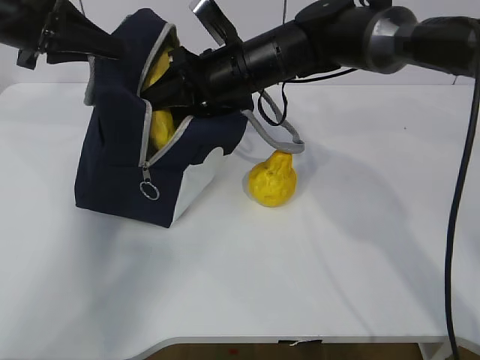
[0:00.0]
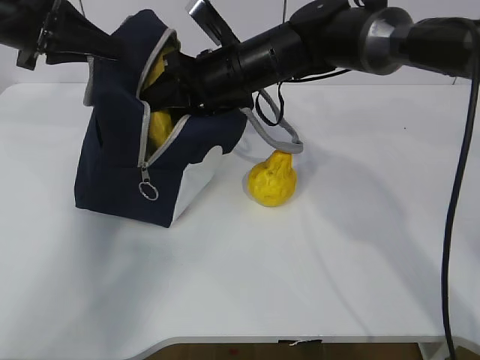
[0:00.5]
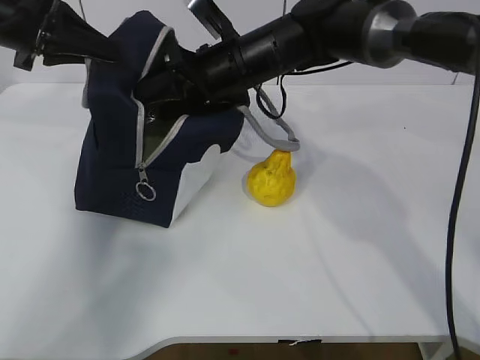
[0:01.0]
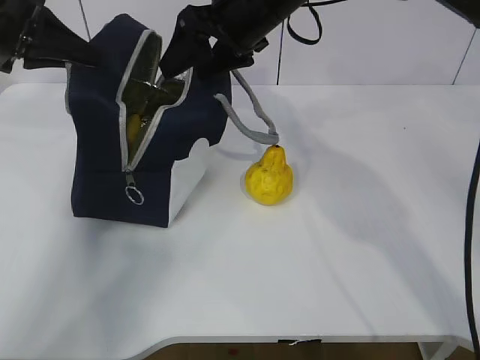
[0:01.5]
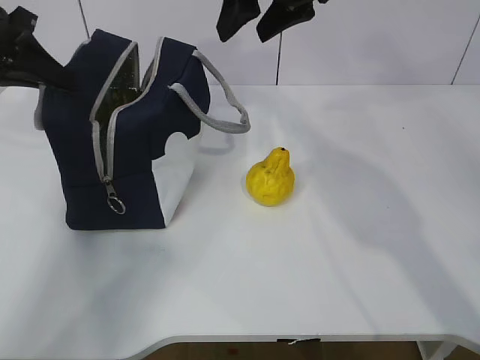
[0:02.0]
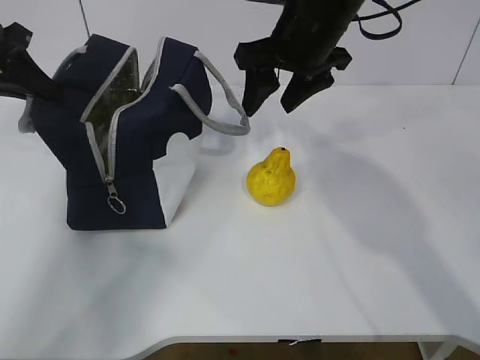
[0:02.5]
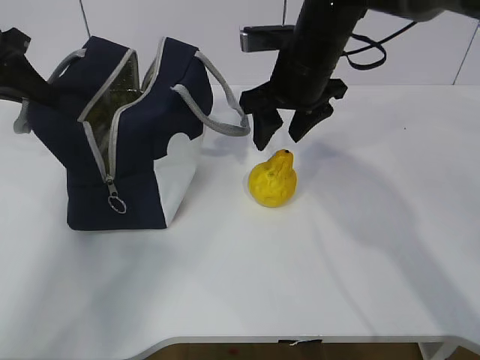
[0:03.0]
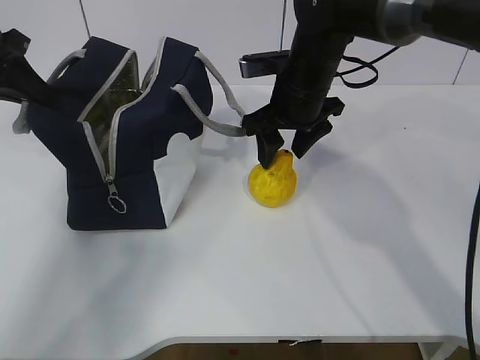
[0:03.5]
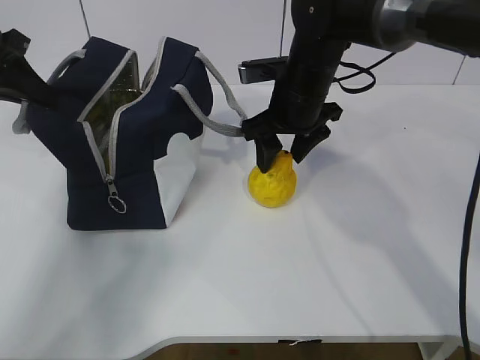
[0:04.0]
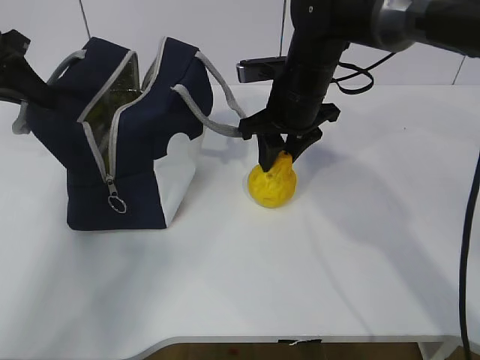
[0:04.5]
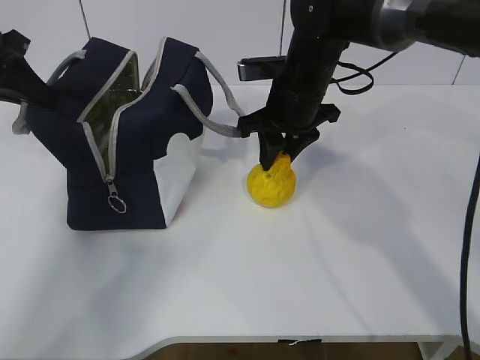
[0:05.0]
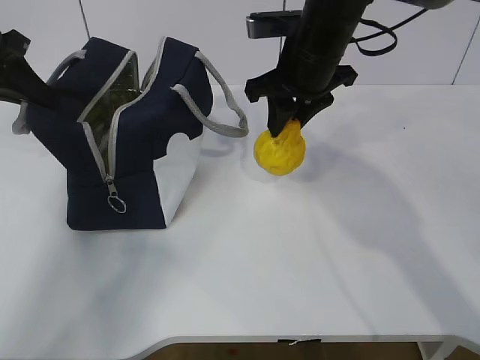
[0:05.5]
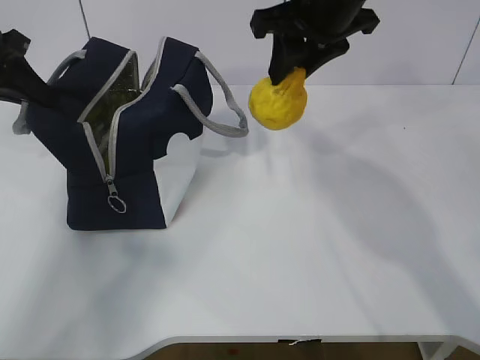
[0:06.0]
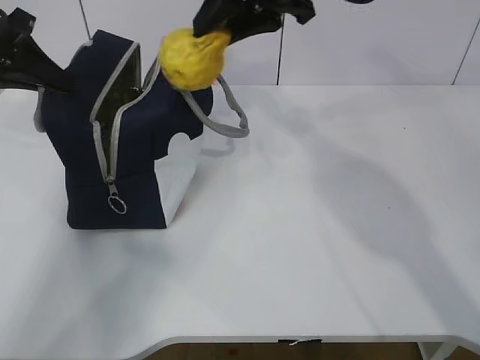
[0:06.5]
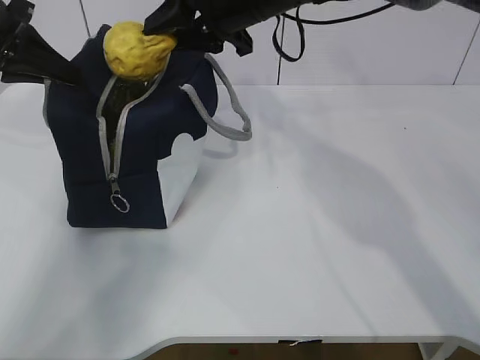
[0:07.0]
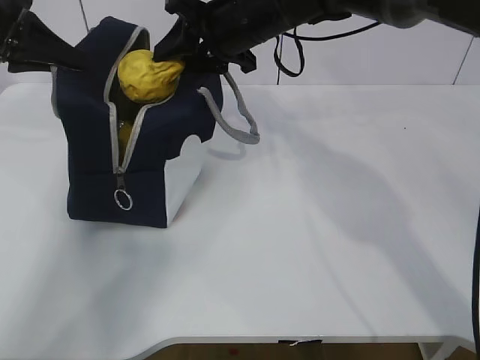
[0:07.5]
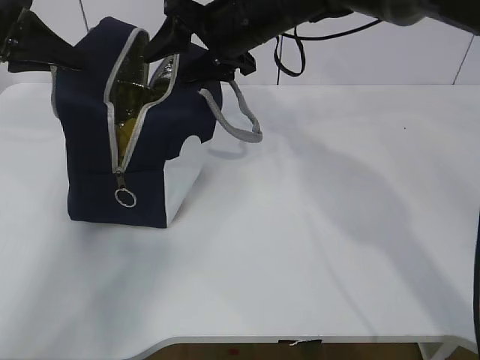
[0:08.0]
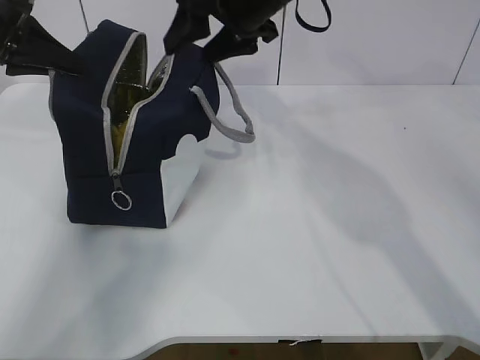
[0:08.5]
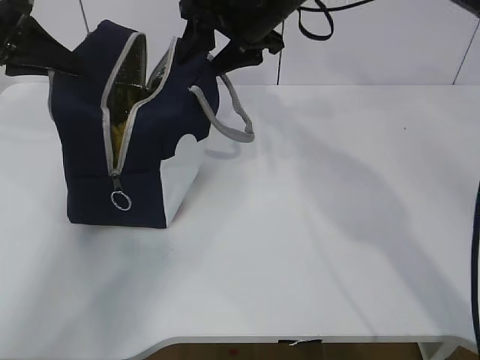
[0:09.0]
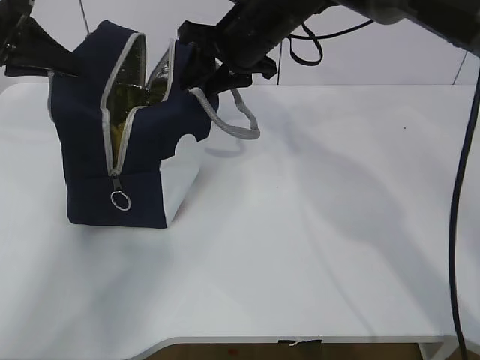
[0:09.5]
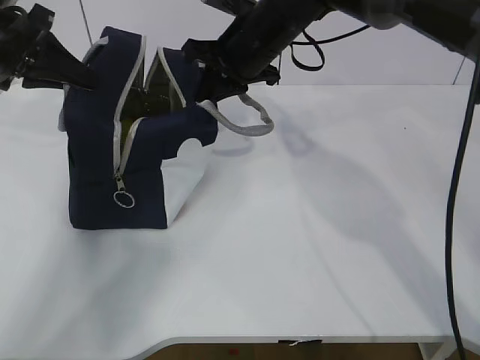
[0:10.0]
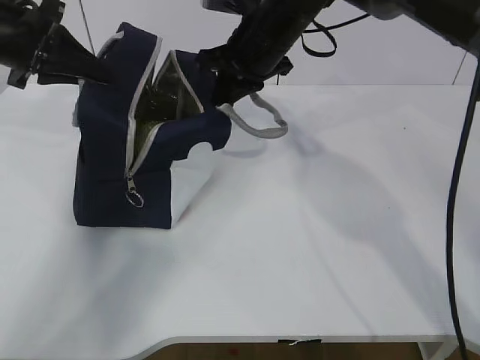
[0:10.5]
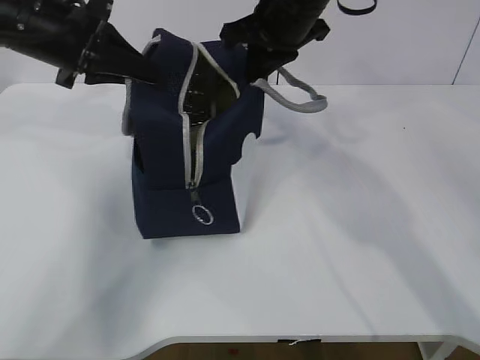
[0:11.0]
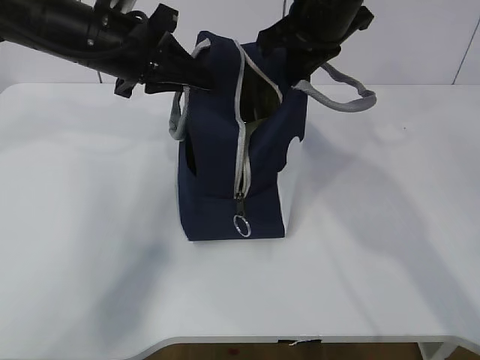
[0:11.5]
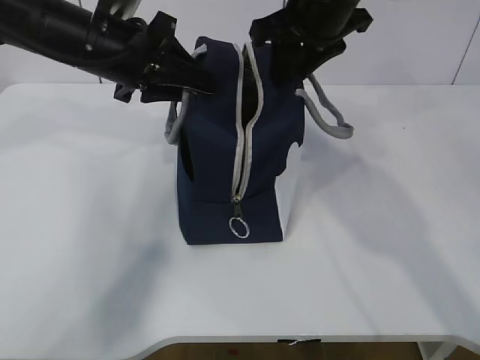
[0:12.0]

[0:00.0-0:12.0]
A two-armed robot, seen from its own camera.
Step, 0:01.5 to 0:04.5: Grasp the pear with the right gripper.
Step, 0:05.0 to 0:07.5: Place the pear into the package with the right gripper.
0:00.0 to 0:02.0: The right gripper is displaced upward and to the right by some 15 cm, and opens up.
0:02.0 to 0:04.0: The right gripper is displaced downward by approximately 15 cm.
0:04.0 to 0:06.0: The right gripper heads upward, covering approximately 10 cm, and closes.
0:06.0 to 0:08.0: The right gripper moves to the left, approximately 5 cm, and opens up.
0:08.0 to 0:10.0: The right gripper closes its fingers.
0:10.0 to 0:12.0: The left gripper travels to the right by some 15 cm, and opens, while the right gripper moves upward and to the right, approximately 10 cm, and opens its fingers.

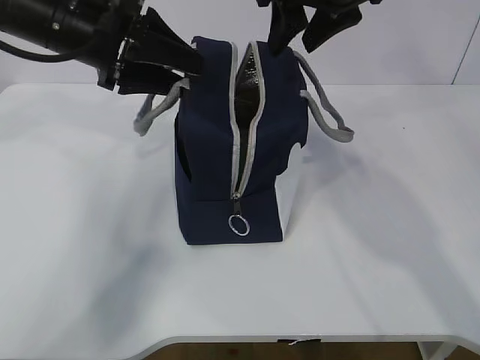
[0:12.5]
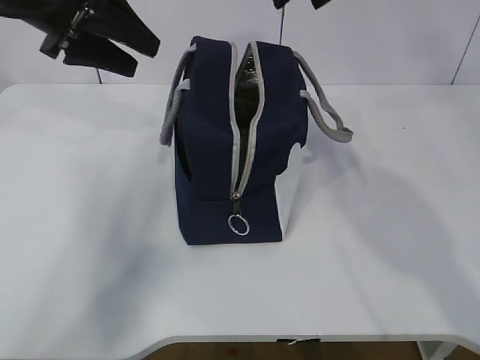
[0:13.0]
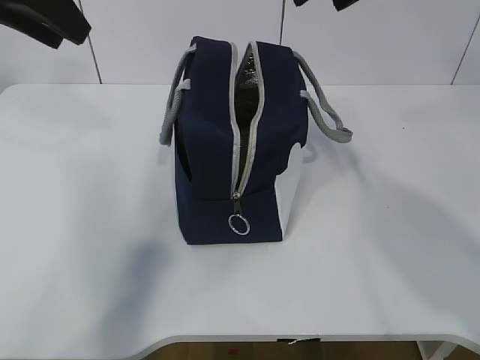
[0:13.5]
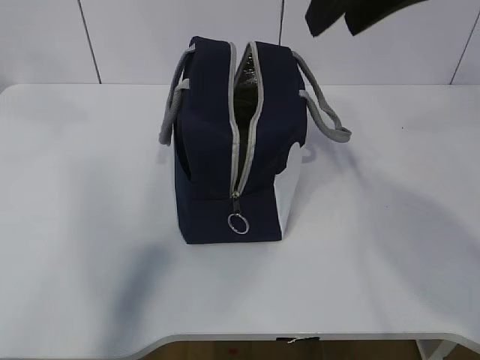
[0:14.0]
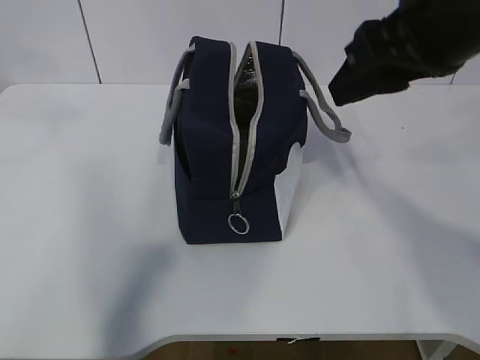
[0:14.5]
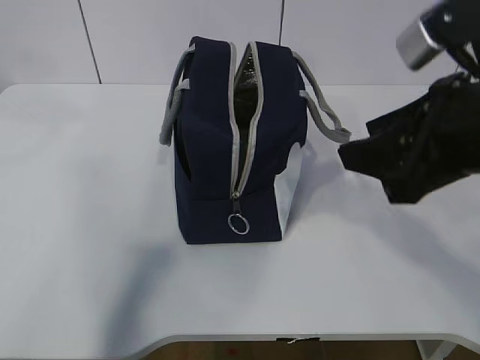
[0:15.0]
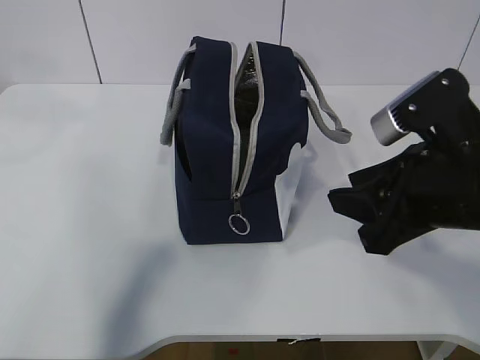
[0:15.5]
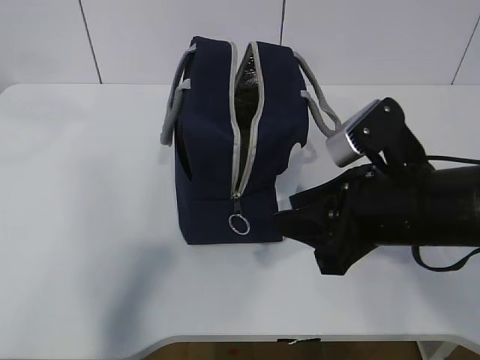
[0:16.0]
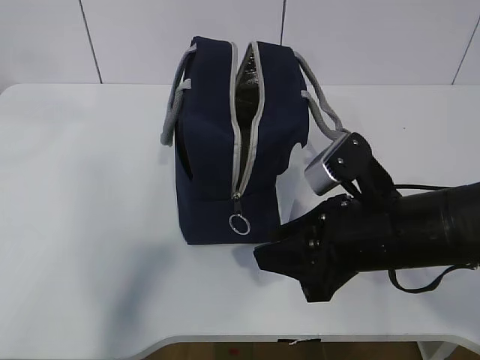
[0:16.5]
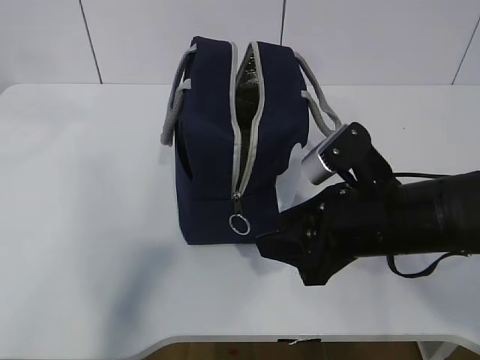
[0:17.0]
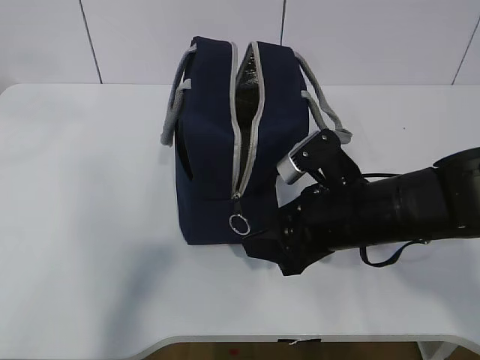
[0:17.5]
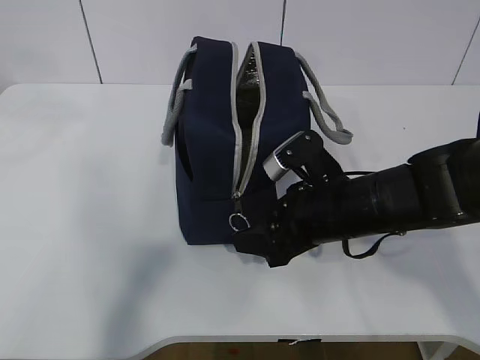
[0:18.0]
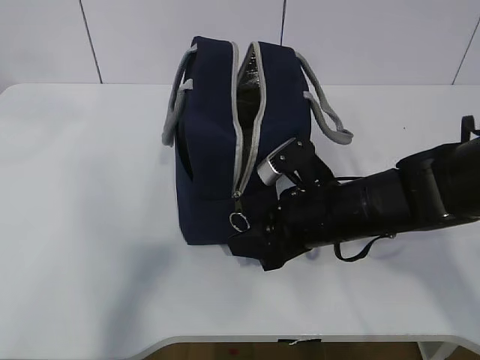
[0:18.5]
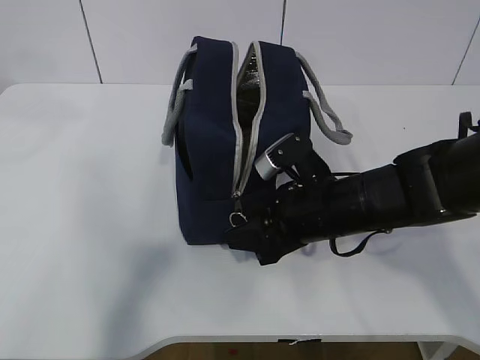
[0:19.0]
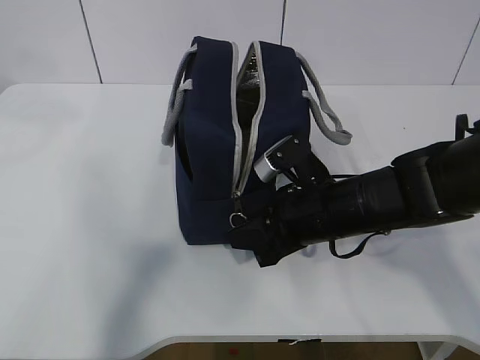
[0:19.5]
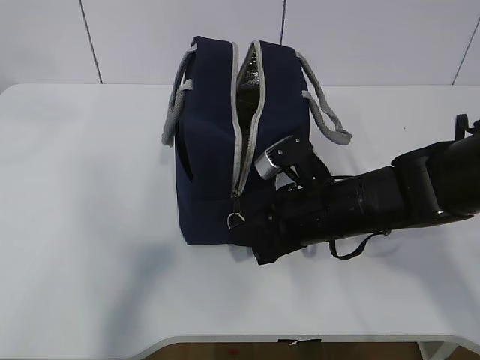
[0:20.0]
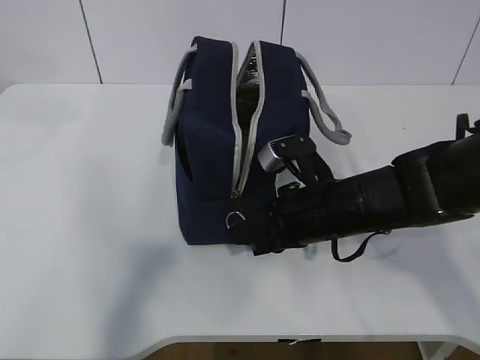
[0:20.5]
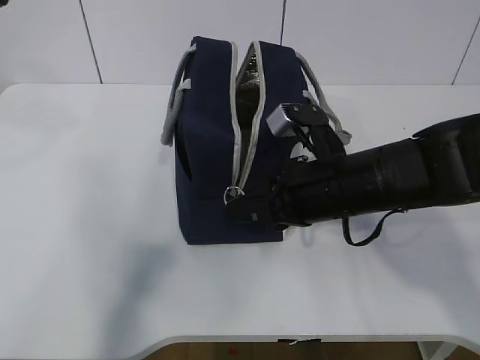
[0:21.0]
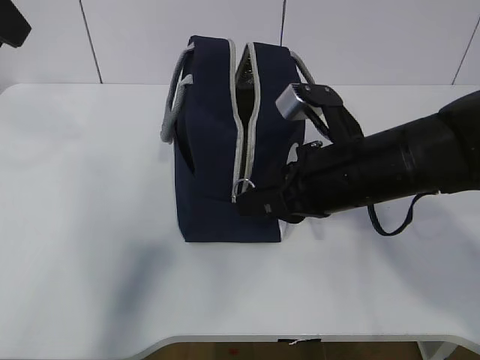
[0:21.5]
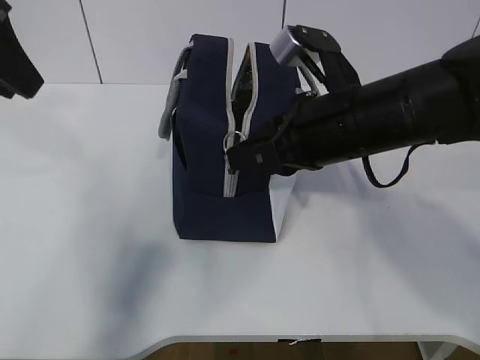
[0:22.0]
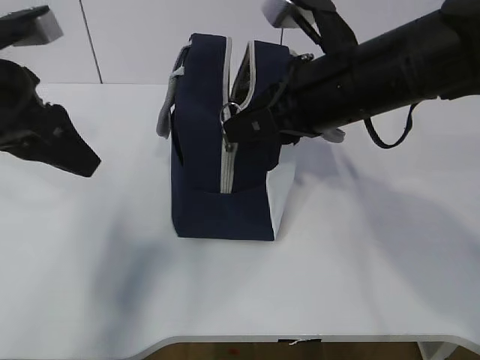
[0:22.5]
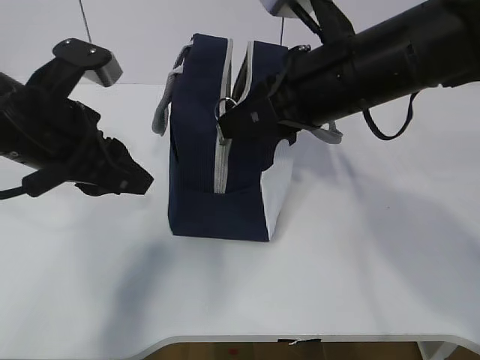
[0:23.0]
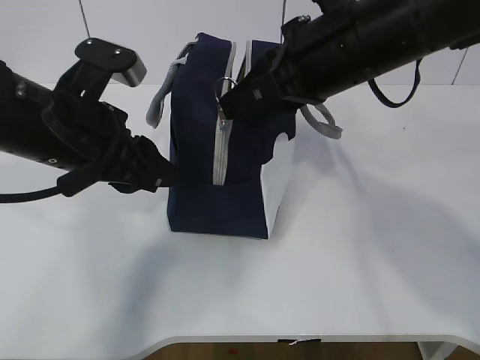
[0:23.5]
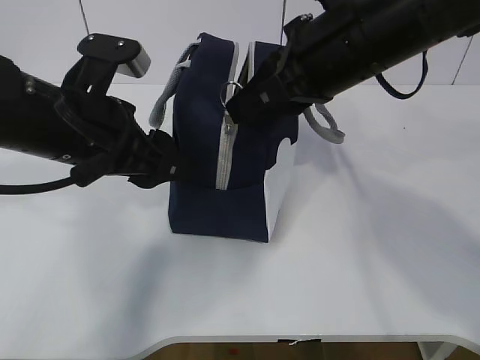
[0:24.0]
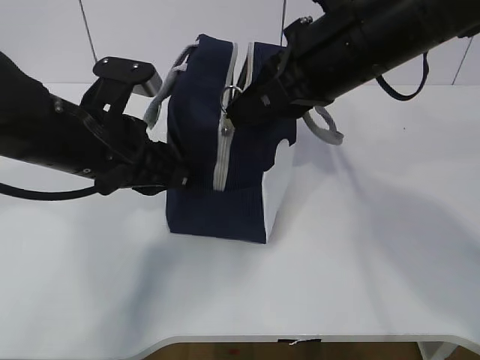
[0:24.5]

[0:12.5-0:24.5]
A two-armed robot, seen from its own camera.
0:12.5 to 0:14.5: The right gripper moves backward, some 15 cm. The left gripper shifts about 20 cm upward, backward and to the left, and closes its fingers.
0:14.5 to 0:16.5: The right gripper moves downward, approximately 20 cm.
0:16.5 to 0:18.5: The right gripper moves forward, roughly 5 cm.
0:18.5 to 0:20.5: The right gripper closes.
0:20.5 to 0:22.5: The left gripper moves downward, approximately 15 cm; the right gripper goes roughly 15 cm upward.
0:22.5 to 0:24.5: The left gripper is displaced to the right and downward by some 10 cm.

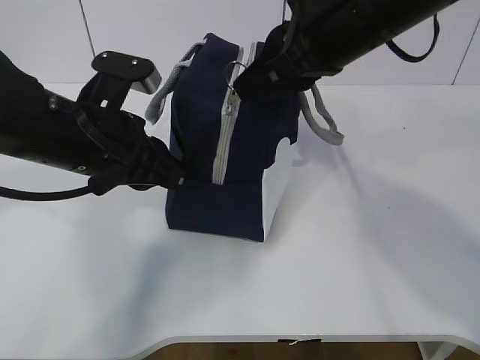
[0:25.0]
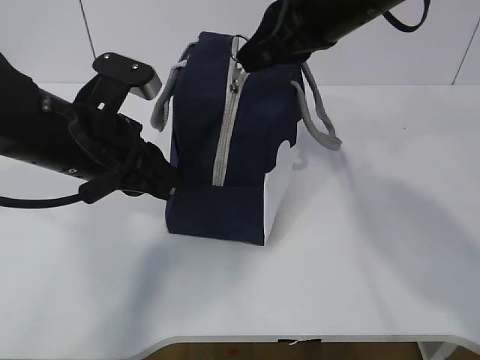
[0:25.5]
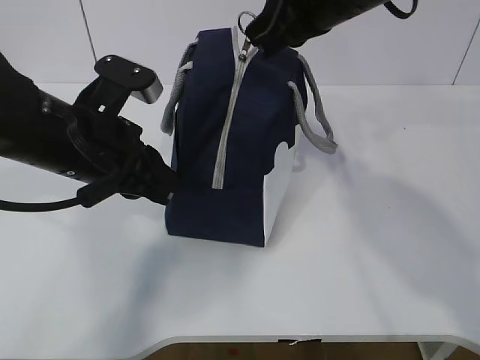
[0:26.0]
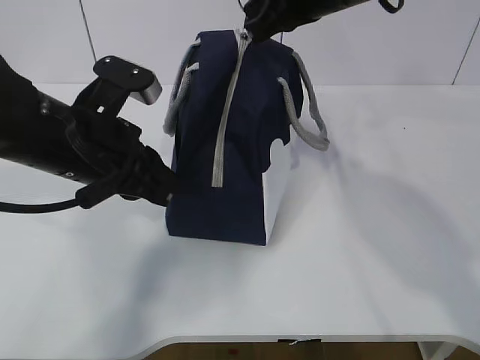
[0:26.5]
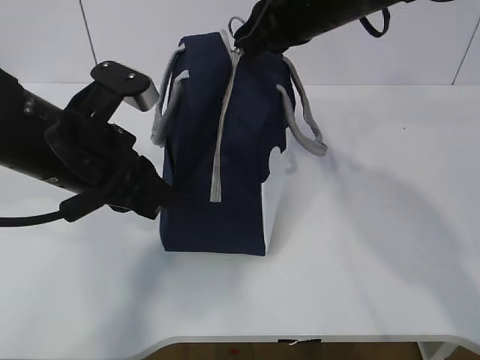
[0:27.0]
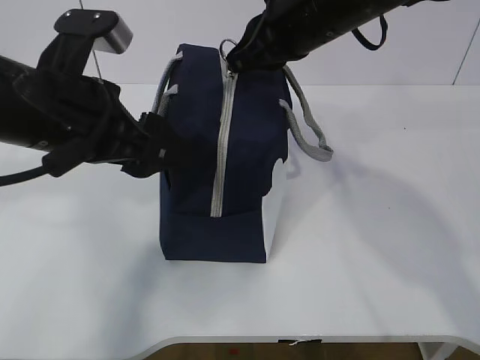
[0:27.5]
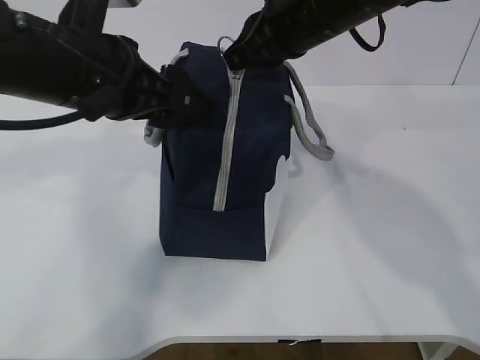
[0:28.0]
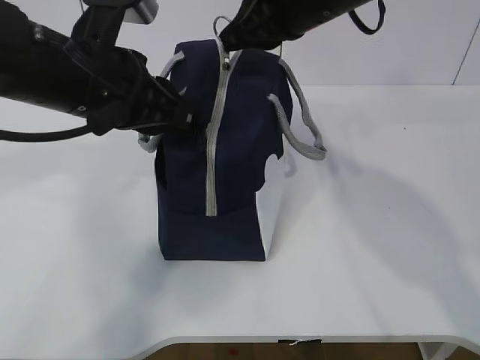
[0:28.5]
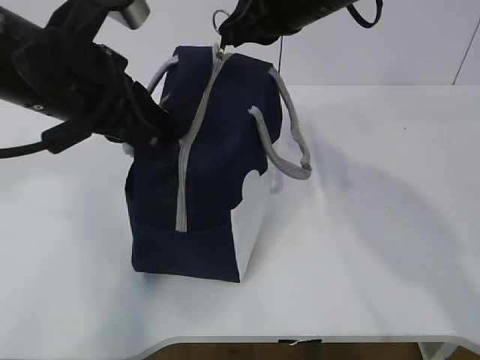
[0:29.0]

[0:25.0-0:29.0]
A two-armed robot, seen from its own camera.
0:25.0 to 0:27.0: The right gripper shifts about 10 cm forward.
0:27.0 to 0:29.0: The left gripper is displaced upward by about 5 cm, and opens, then closes again.
